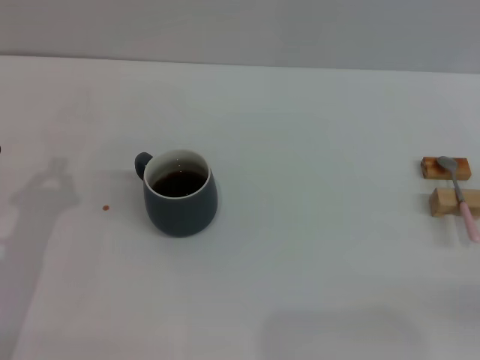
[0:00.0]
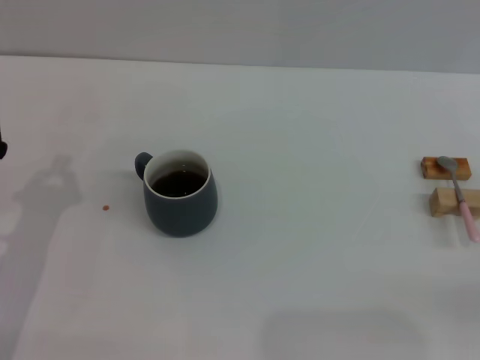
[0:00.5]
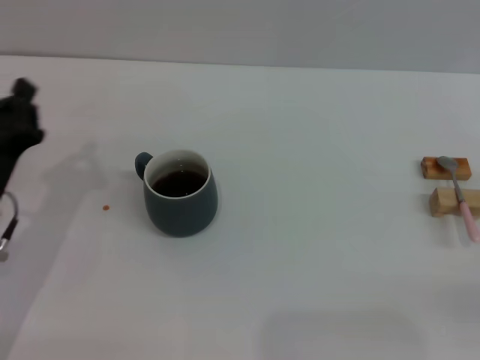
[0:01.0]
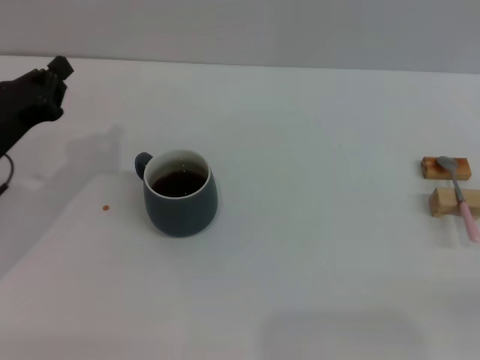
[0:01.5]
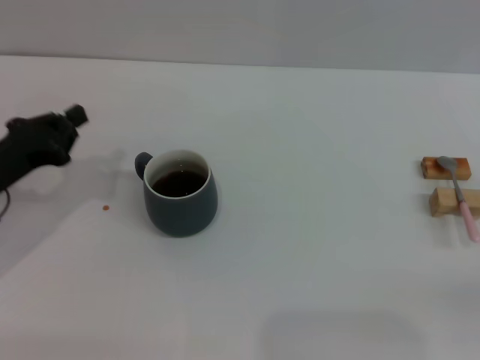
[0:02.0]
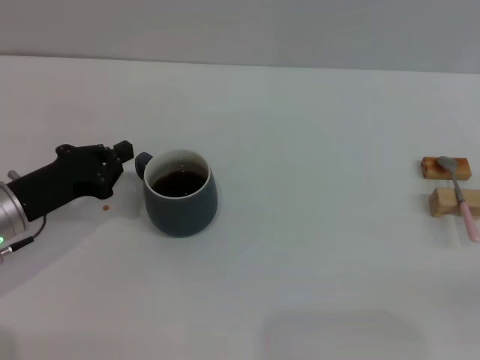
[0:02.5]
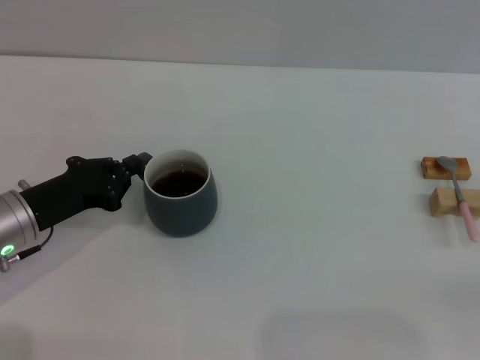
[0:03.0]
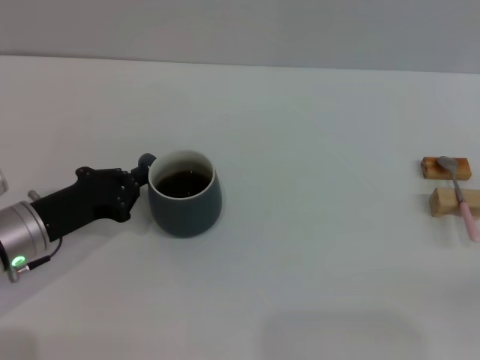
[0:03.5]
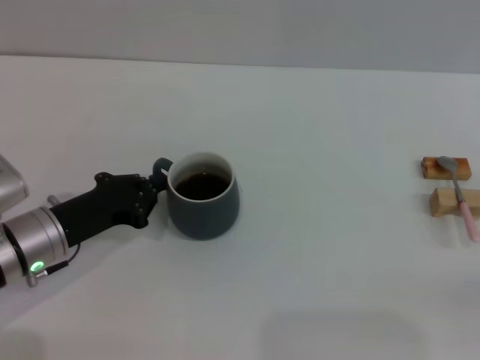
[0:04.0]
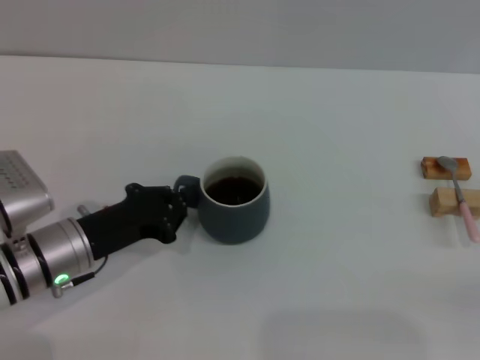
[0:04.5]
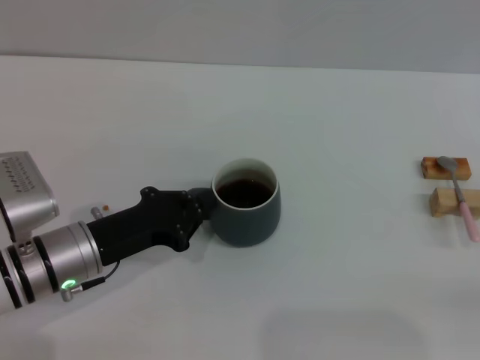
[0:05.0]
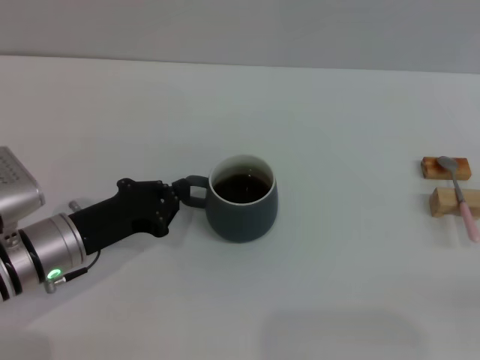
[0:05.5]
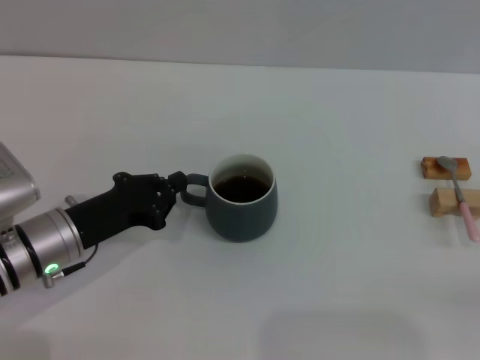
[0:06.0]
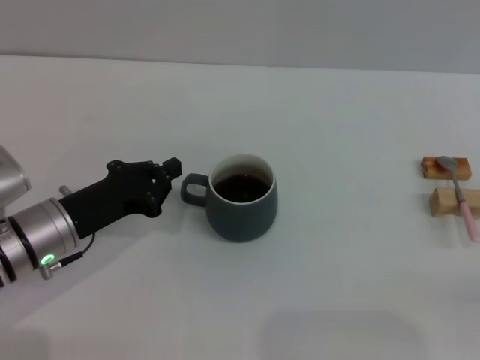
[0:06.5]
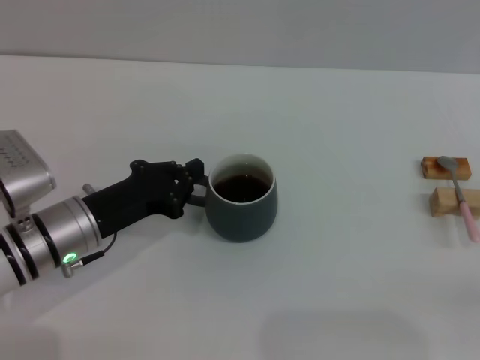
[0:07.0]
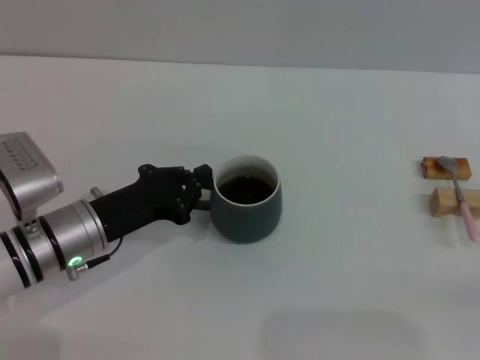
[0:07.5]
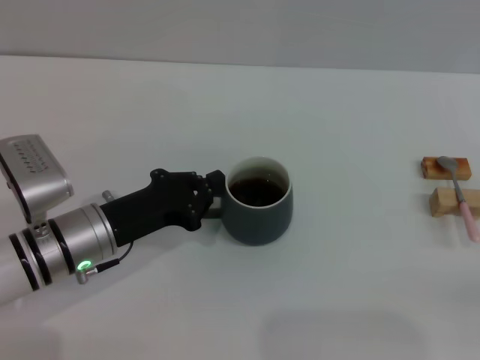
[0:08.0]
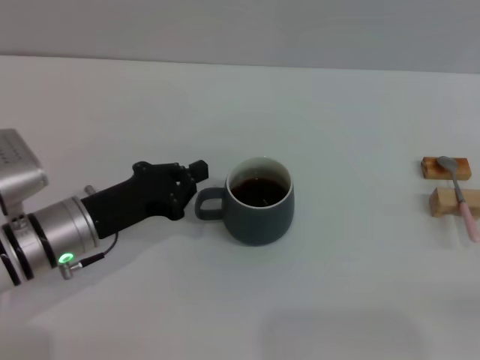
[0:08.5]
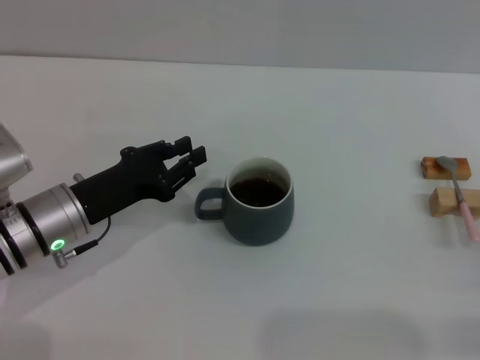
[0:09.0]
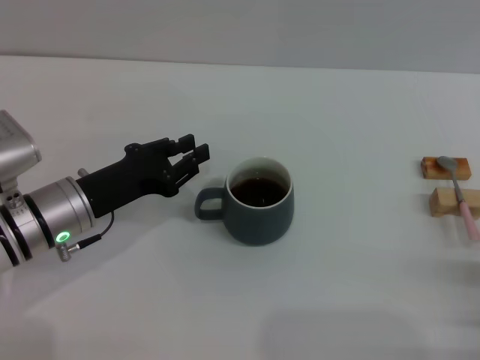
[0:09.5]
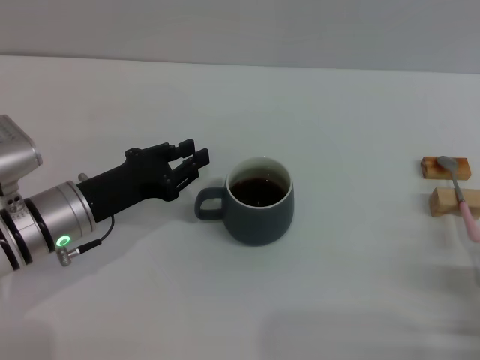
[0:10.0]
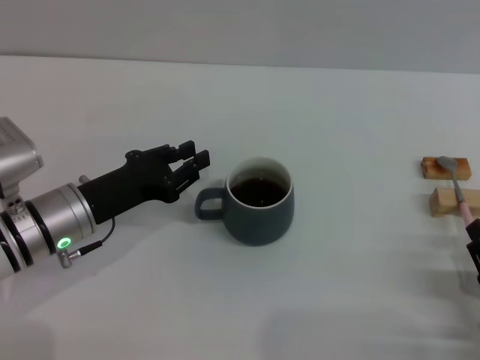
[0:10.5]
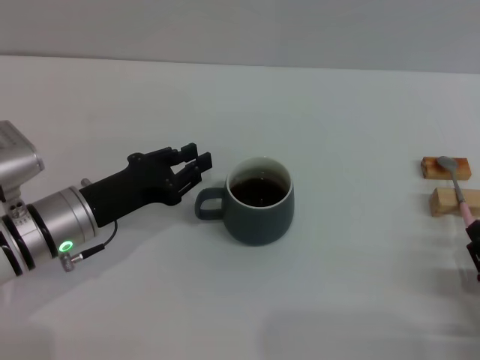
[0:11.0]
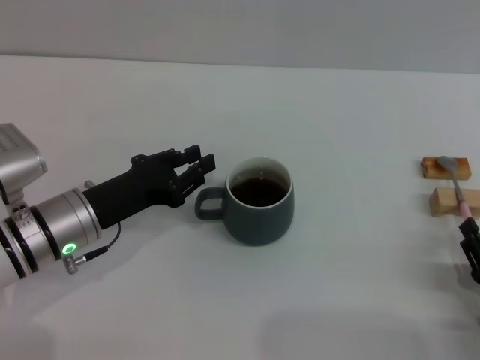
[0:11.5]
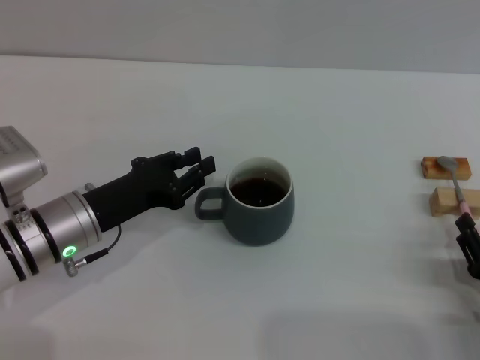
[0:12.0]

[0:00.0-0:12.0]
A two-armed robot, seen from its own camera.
Task of the whole recording: Move the grey cup to the center, lift the pink spoon, stir it three times in the cup, and put the spoon into the cup.
Step, 0:00.0 to 0:10.0: Move the cup with coffee to the center of view with the left gripper.
0:00.0 to 0:02.0: The left gripper heads forward, covering some 5 cm.
0:02.0 to 0:04.0: The left gripper shifts roughly 5 cm to the right.
0:04.0 to 0:08.0: There are only small adjustments of the grippers.
0:08.0 to 0:10.0: The right gripper heads to the left and backward, covering approximately 10 cm; the left gripper opens up.
0:10.0 to 0:12.0: There are only small adjustments of the grippers.

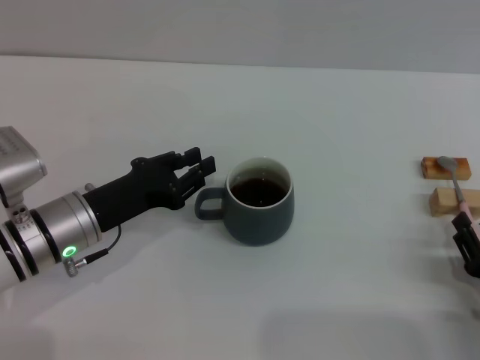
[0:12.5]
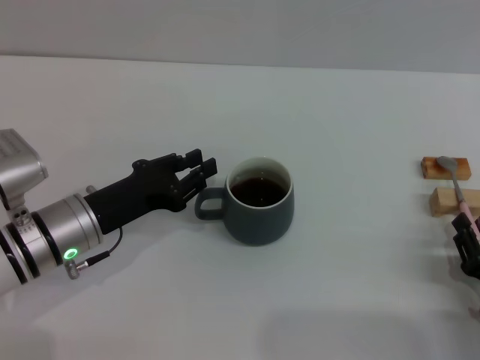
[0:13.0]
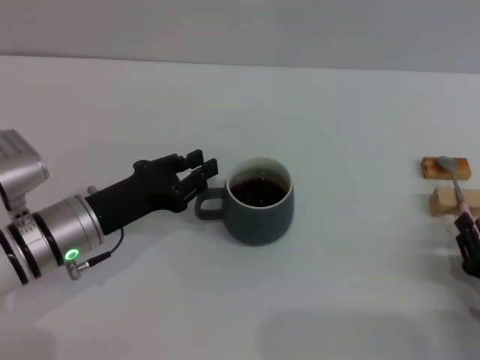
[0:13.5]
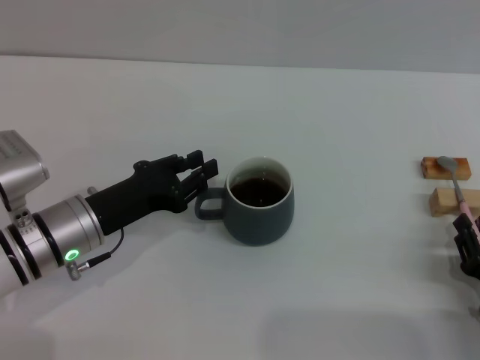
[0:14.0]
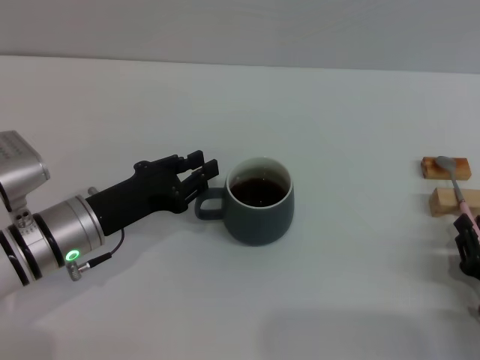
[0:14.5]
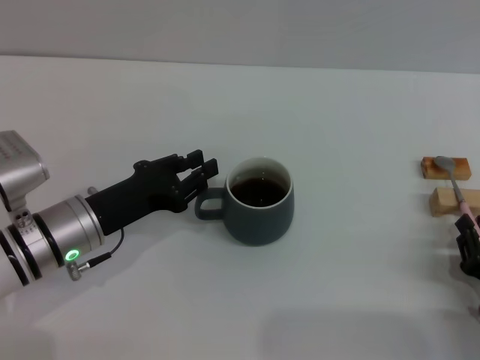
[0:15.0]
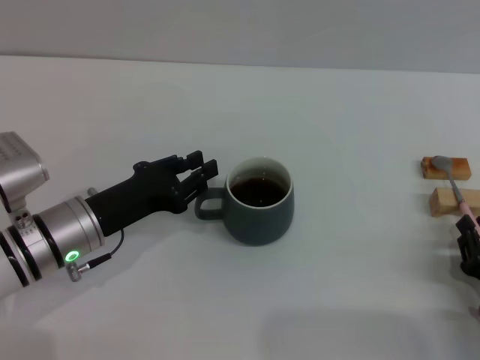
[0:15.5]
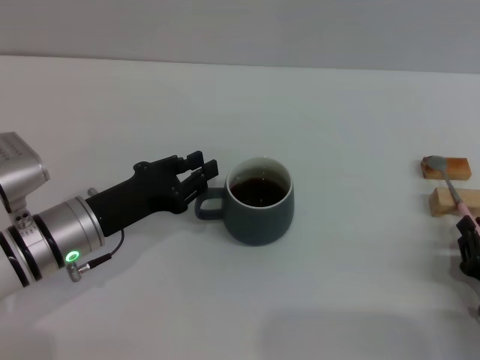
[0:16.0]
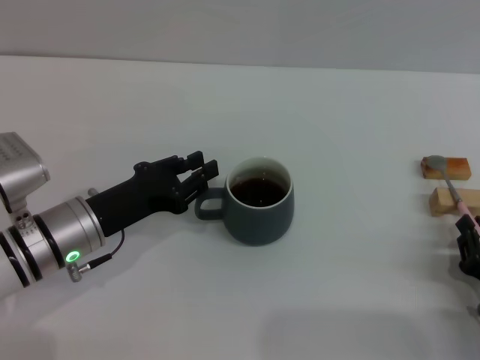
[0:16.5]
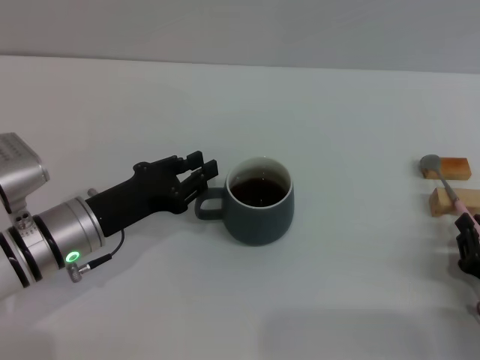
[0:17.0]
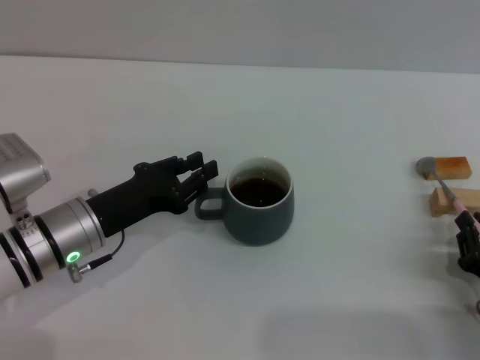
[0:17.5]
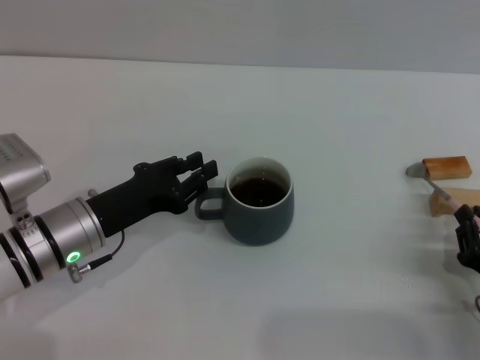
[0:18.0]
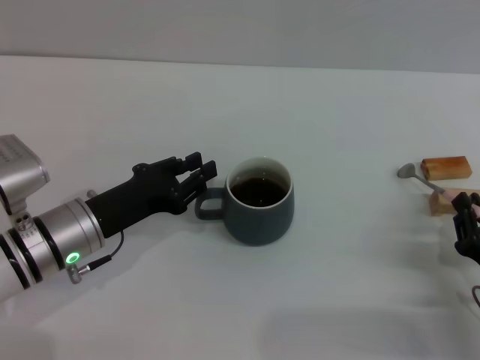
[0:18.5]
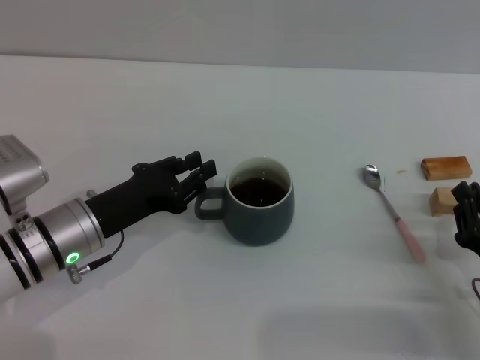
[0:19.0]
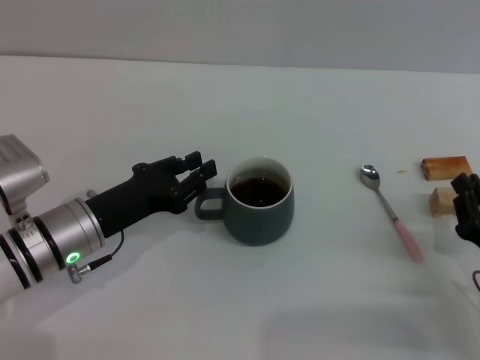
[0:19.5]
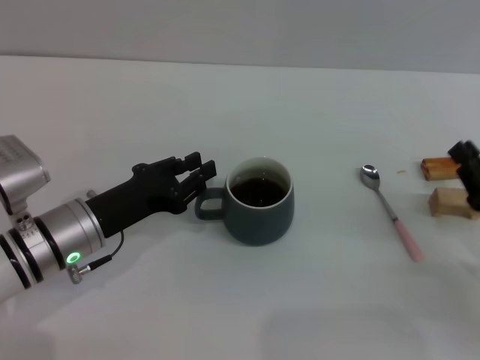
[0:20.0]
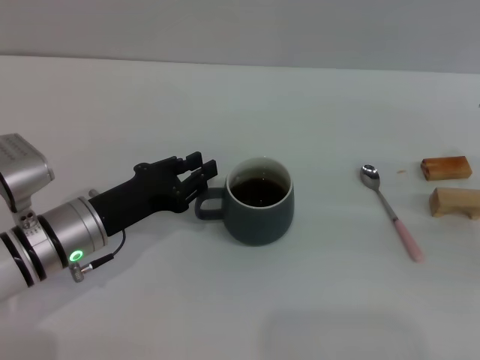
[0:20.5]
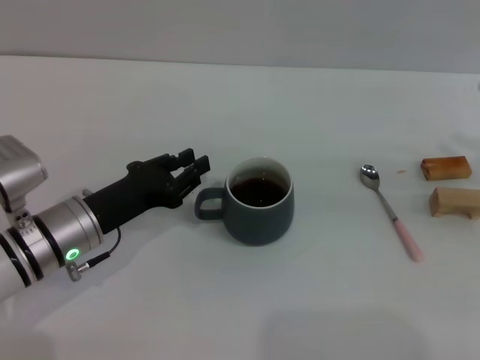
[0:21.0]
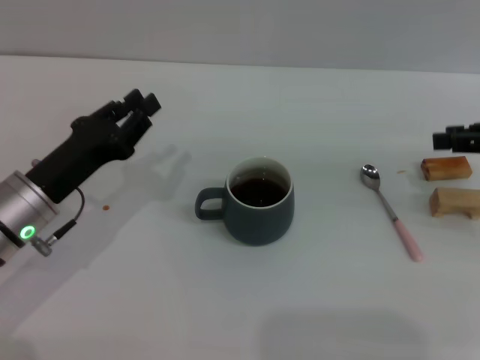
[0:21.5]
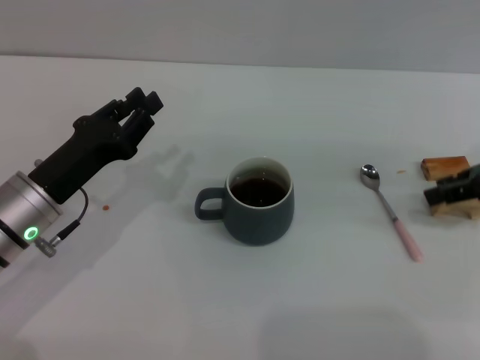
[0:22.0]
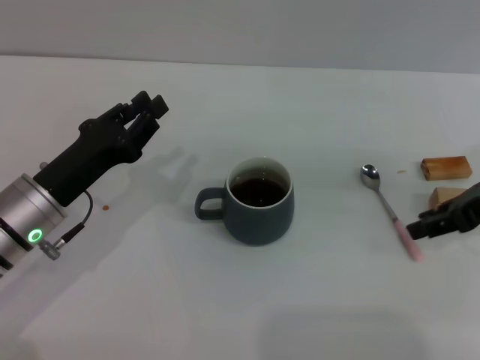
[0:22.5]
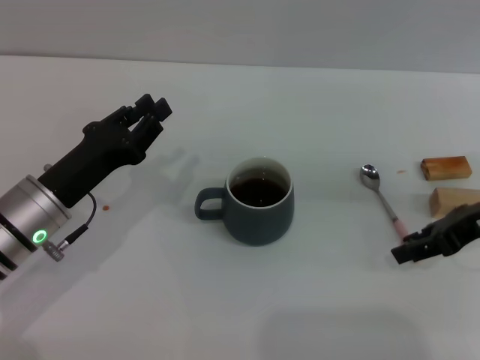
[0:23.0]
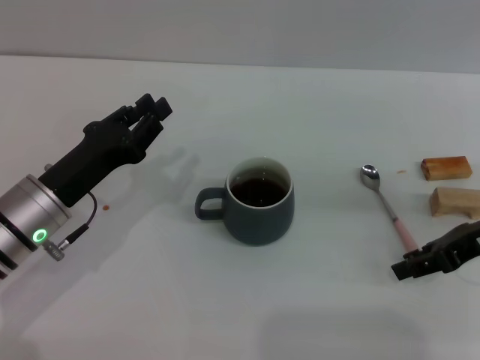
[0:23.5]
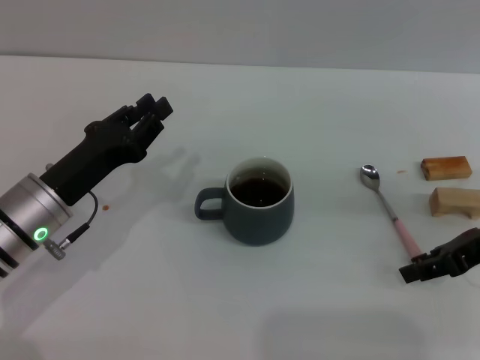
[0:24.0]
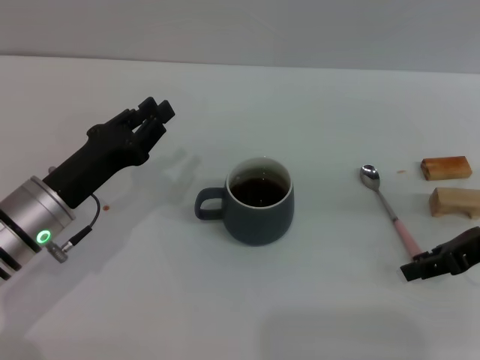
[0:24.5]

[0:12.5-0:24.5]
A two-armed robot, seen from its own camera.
Task of the whole recording: Move the grey cup to the center, lift the pink spoon, stir it three times in the cup, and put the spoon into the cup.
0:12.5 to 0:14.5: The right gripper closes up.
0:14.5 to 0:16.5: The two grippers keep their place.
0:16.5 to 0:18.5: The grippers move only a little.
0:18.5 to 0:20.5: The right gripper shifts roughly 15 cm upward, forward and to the right.
0:20.5 to 0:22.5: The right gripper goes approximately 10 cm to the left and forward, and opens.
0:22.5 to 0:24.5: The grippers make only small movements.

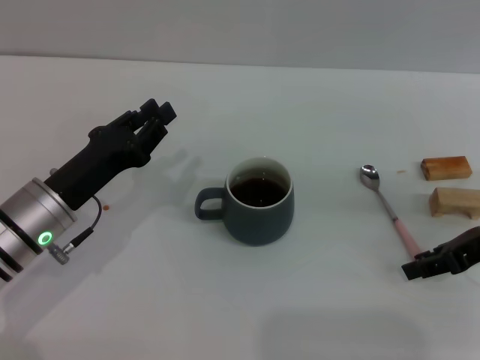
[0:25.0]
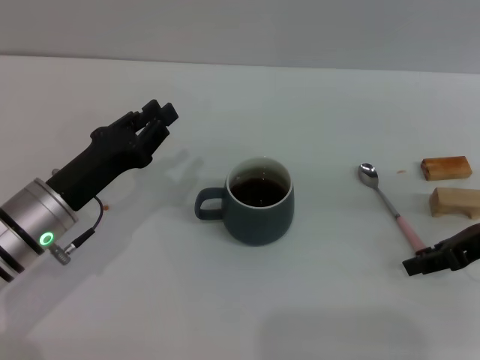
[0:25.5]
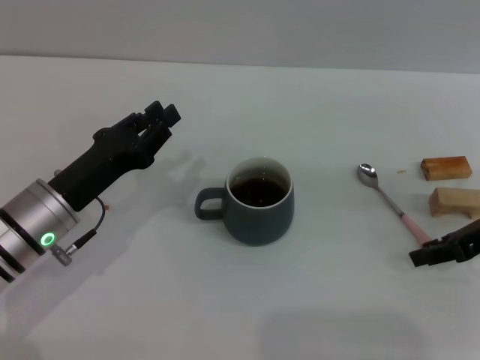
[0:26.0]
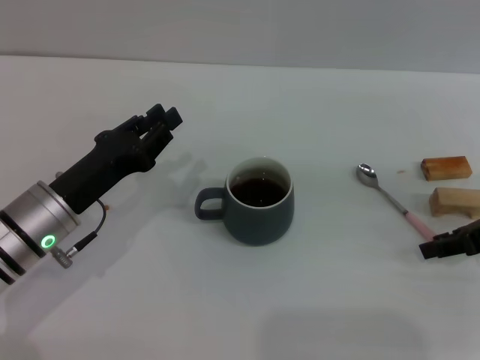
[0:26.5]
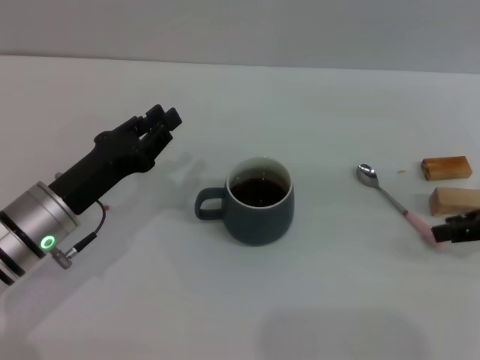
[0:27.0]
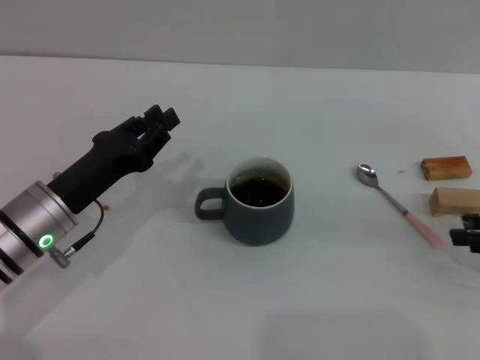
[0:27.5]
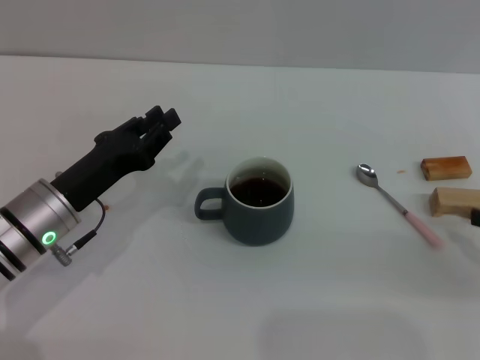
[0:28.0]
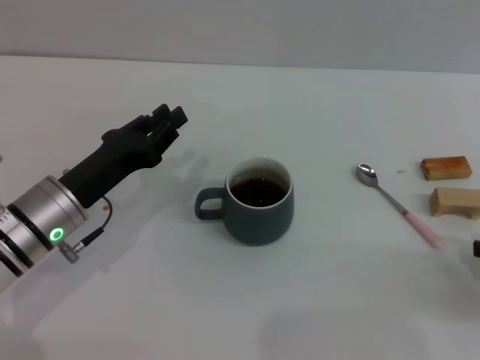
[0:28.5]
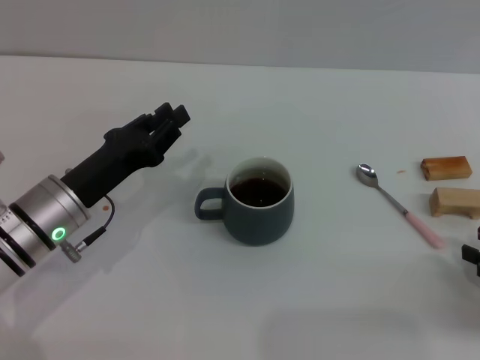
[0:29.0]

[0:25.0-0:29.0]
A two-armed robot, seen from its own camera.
Task of the whole recording: Move the grey cup to the center, lift the pink spoon, stir it three times in the cup, and put the spoon into the cup.
0:25.0 to 0:27.0: The grippers stay close to where they were, moving slightly.
0:27.0 to 0:29.0: The right gripper shifts some 15 cm backward and downward.
